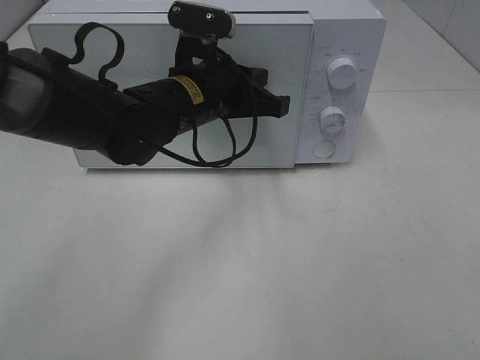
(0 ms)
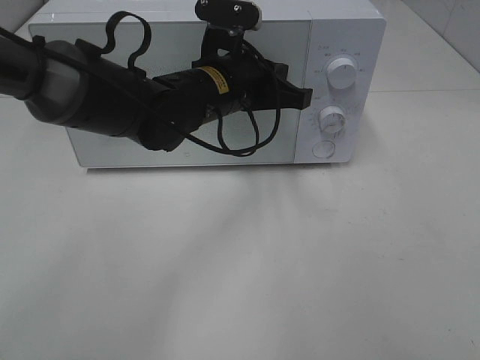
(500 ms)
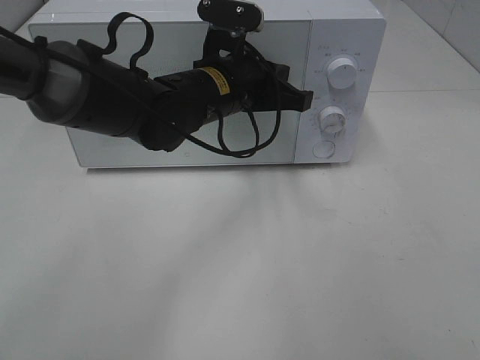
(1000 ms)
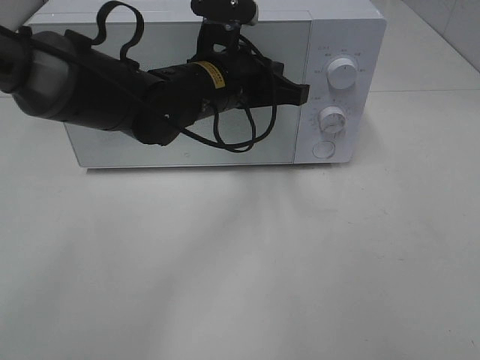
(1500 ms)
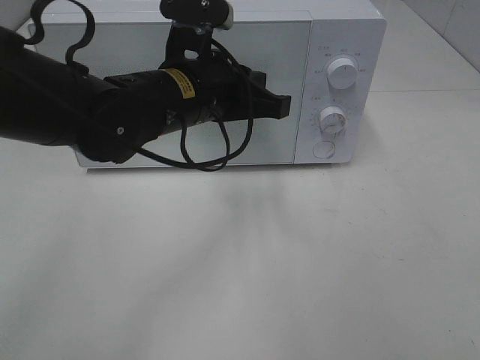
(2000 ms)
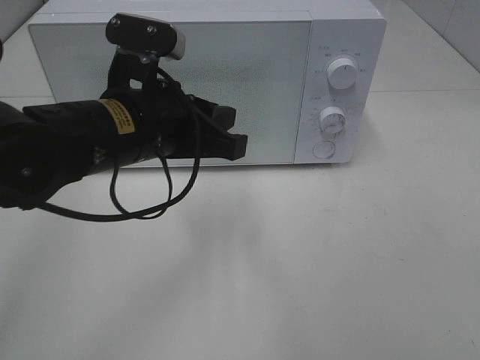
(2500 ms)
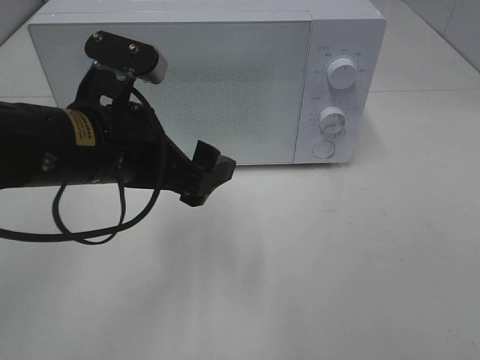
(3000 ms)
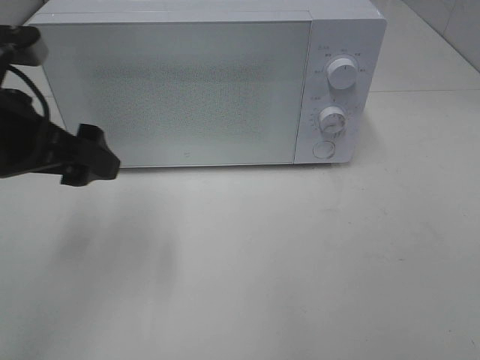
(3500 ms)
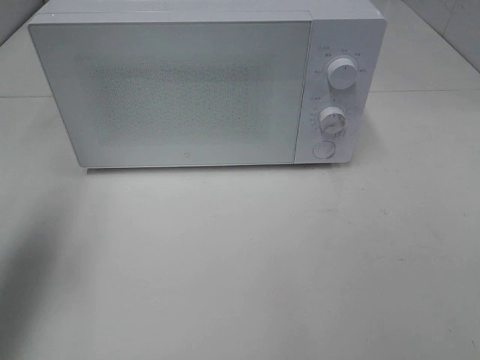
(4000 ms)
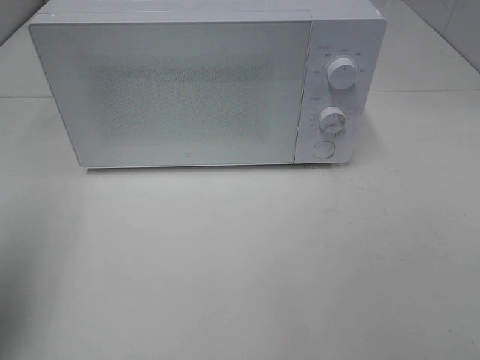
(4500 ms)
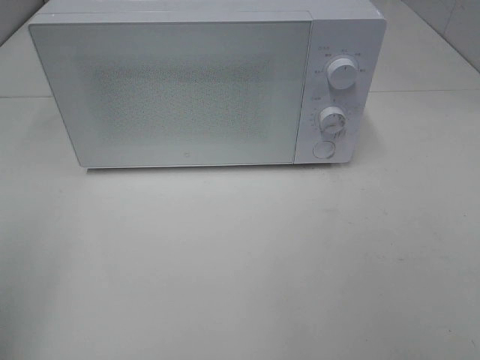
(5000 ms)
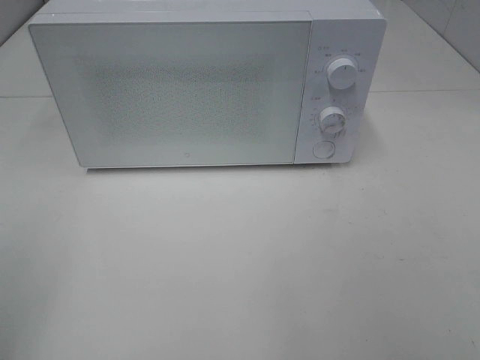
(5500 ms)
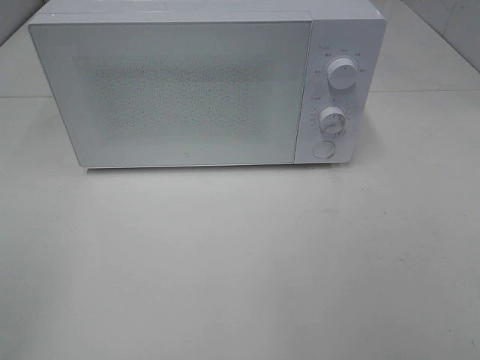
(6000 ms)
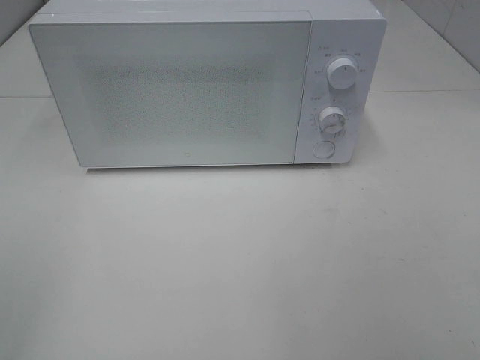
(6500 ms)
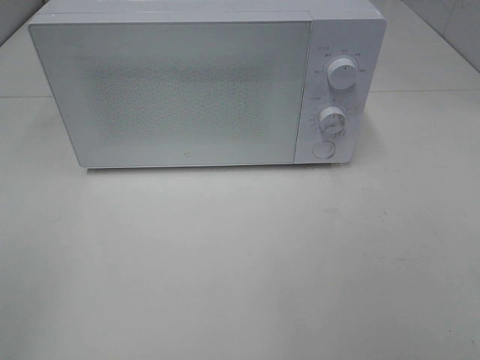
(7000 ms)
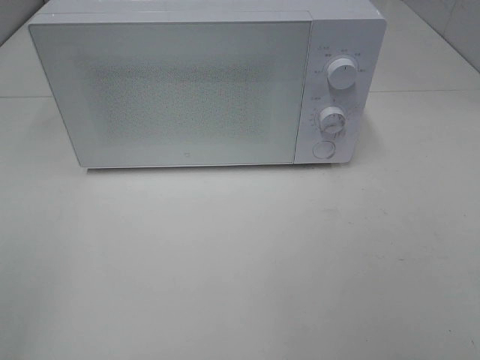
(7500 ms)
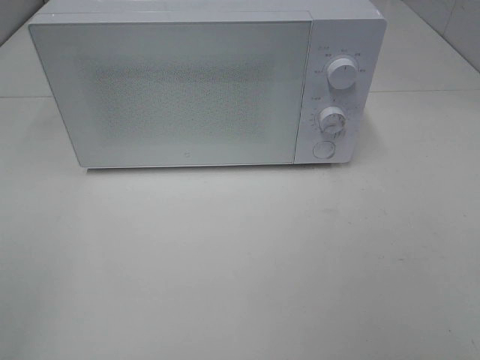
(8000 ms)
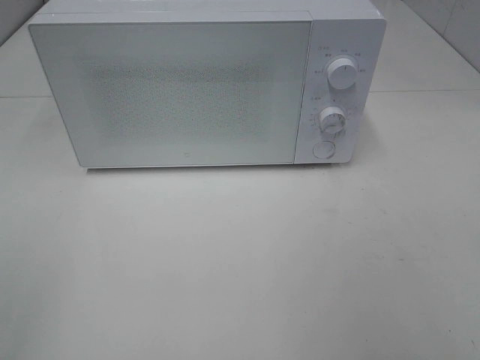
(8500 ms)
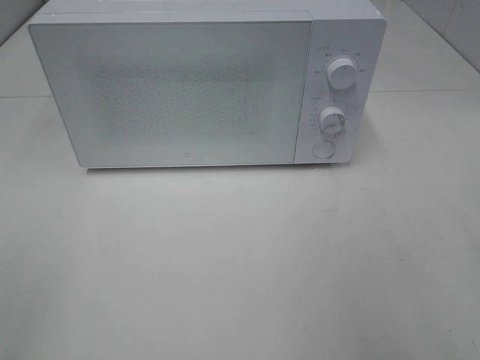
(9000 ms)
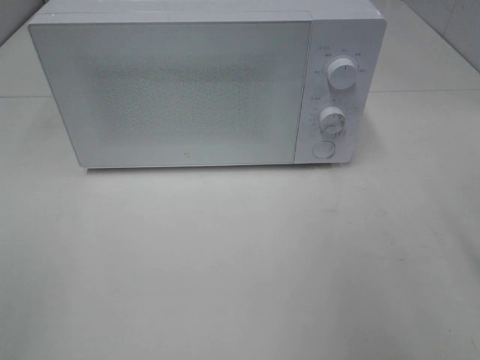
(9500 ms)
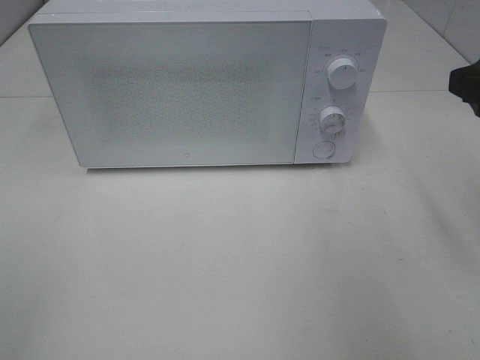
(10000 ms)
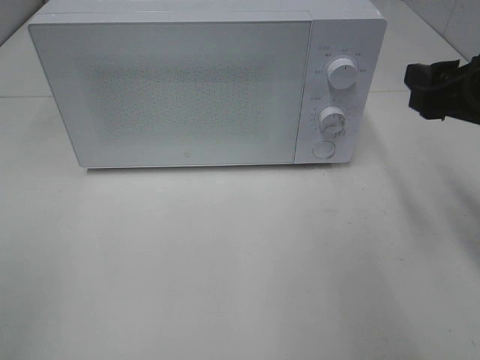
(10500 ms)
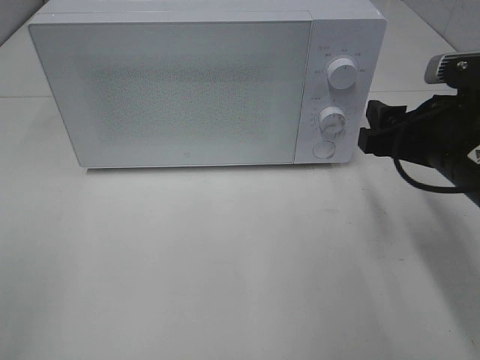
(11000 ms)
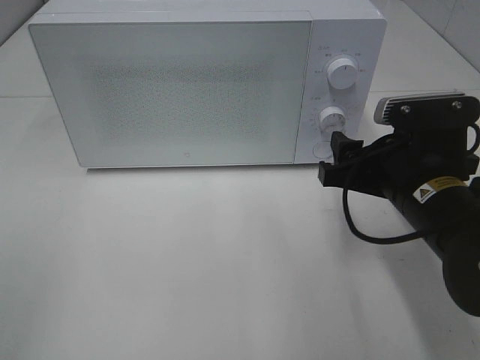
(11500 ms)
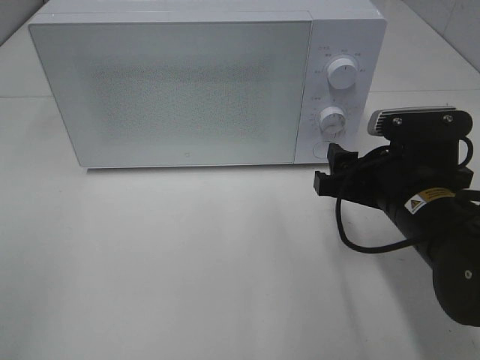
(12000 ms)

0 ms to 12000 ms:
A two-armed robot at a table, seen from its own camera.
Task of the whole recording: Heat Sandwich.
0 ms to 2000 ms: The grippers make only small movements.
2000 ms to 4000 ms: The left gripper shifts roughly 25 cm to the left, and opens its fingers.
4000 ms to 6000 ms: The left gripper travels backward by about 20 cm.
8000 ms to 10000 ms: The right gripper heads forward, covering roughly 20 cm.
10000 ms to 12000 ms: The right gripper heads downward and to the left, covering roughly 15 cm.

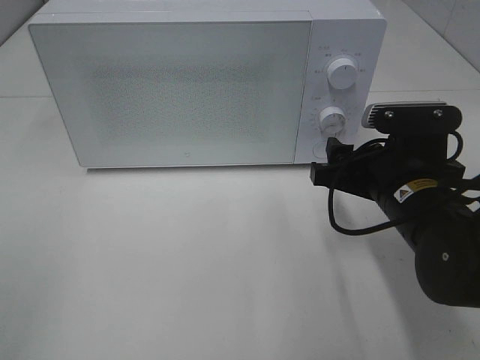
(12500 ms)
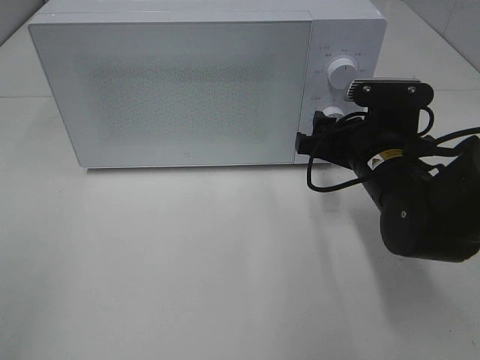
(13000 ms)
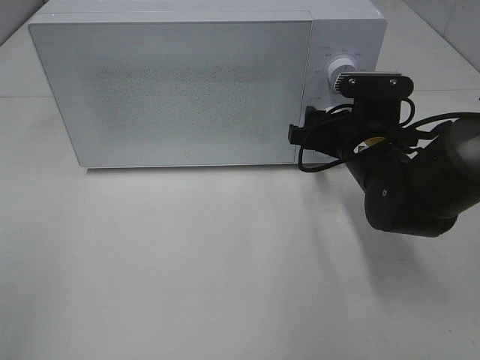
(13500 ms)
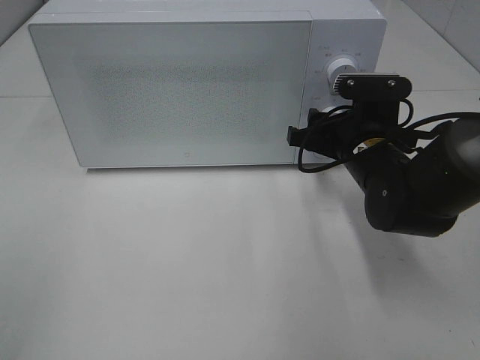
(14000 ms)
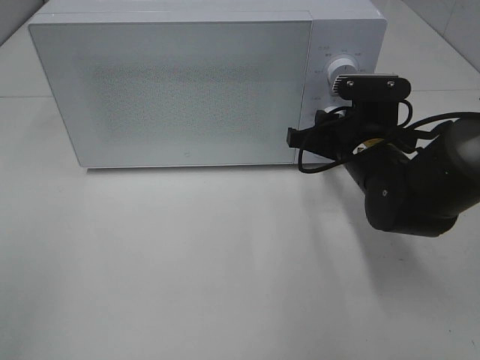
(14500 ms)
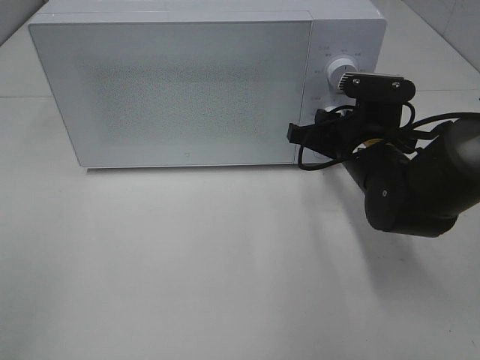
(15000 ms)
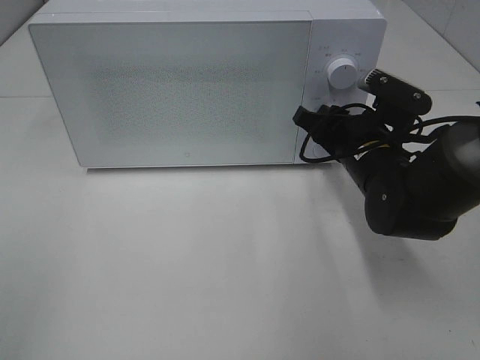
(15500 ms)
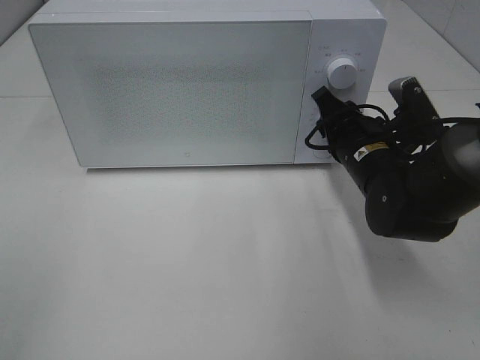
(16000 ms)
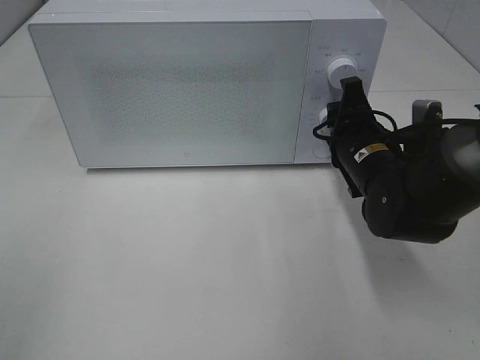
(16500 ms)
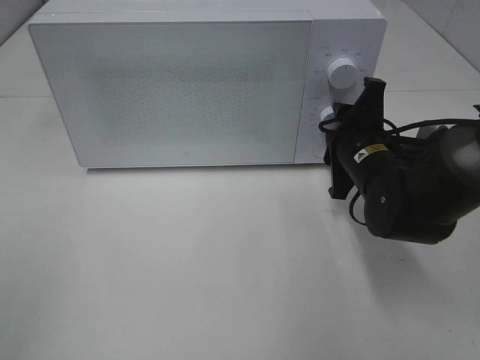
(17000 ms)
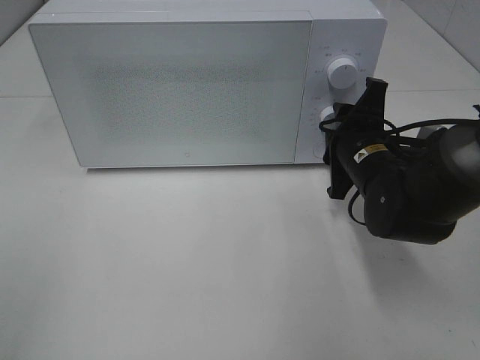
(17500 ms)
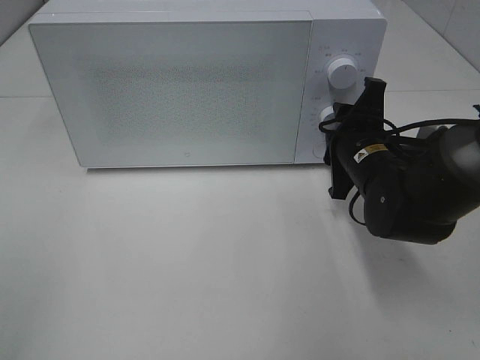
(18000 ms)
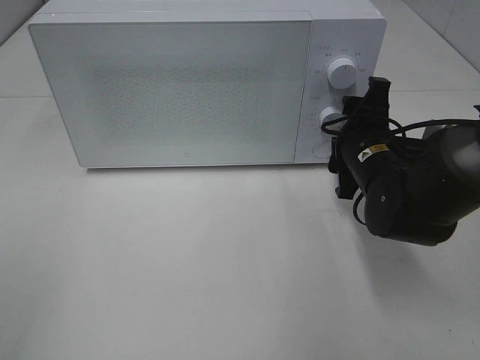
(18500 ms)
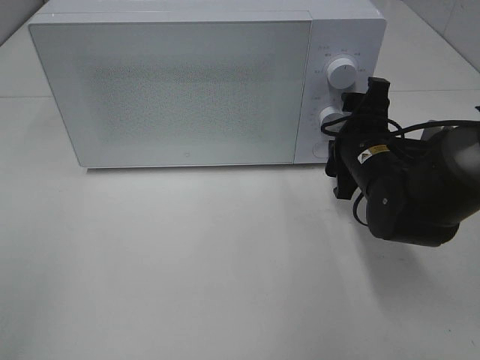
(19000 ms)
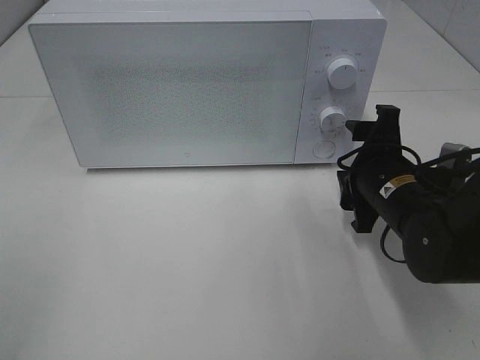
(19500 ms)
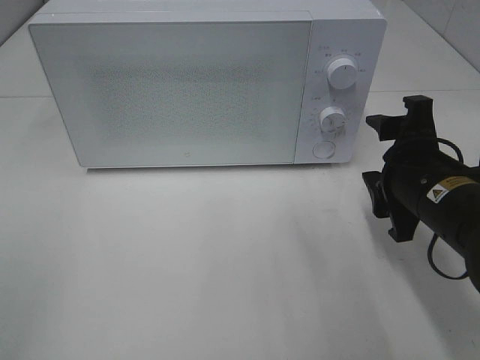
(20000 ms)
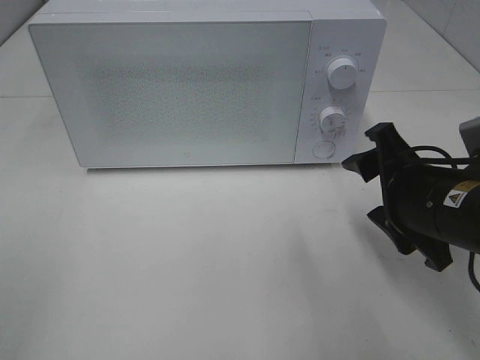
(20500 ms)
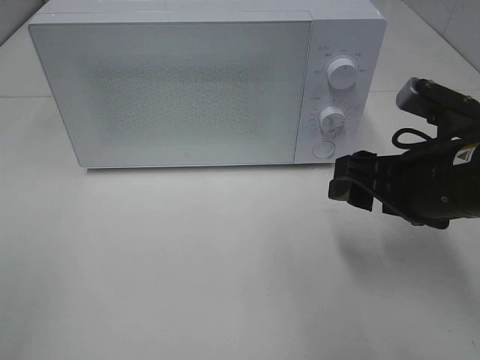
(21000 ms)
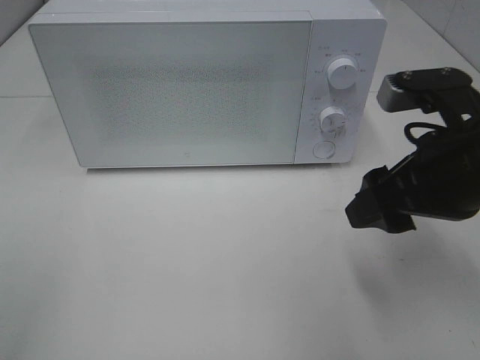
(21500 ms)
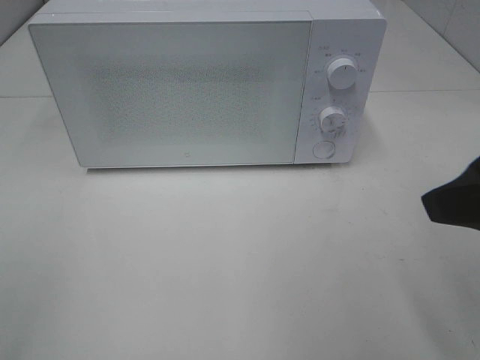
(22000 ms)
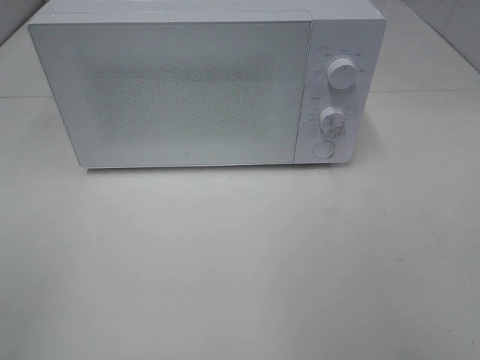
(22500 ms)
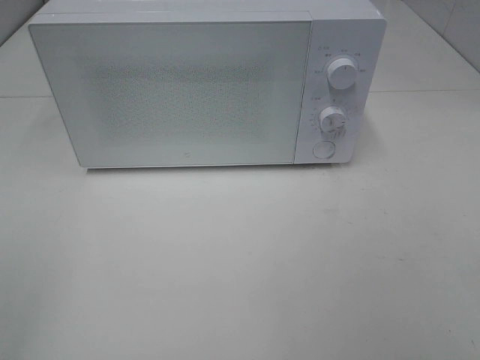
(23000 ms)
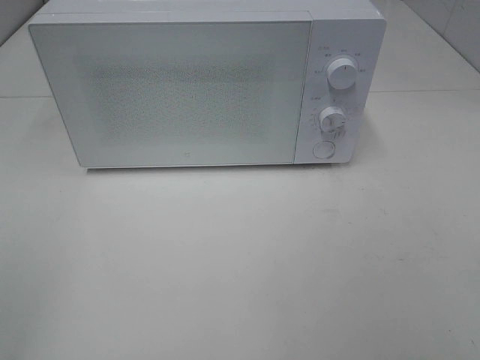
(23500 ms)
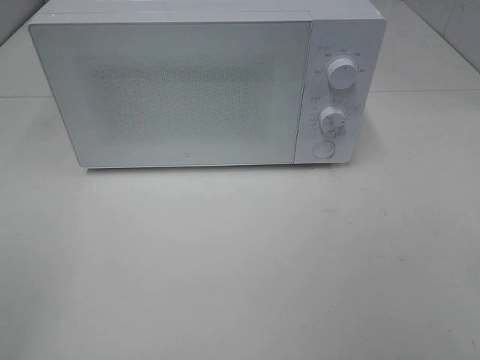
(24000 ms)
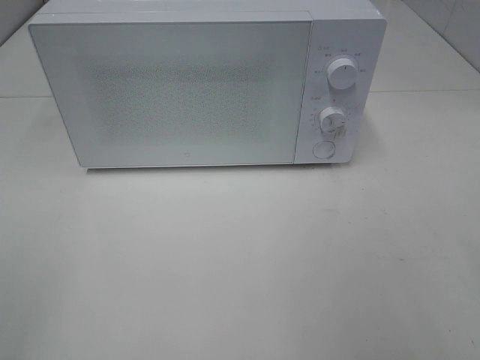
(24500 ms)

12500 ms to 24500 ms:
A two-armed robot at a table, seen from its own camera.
Task of the whole recording: Heat Sandwich.
Step, 12500 ms to 18500 ms: Right hand: twist timer button.
12500 ms to 14500 ms: The right gripper travels forward by about 10 cm, and closes.
18500 ms to 20500 ms: The right gripper travels backward by some 10 cm.
20500 ms to 22500 ms: The right gripper moves backward, upward and to the right, approximately 25 cm.

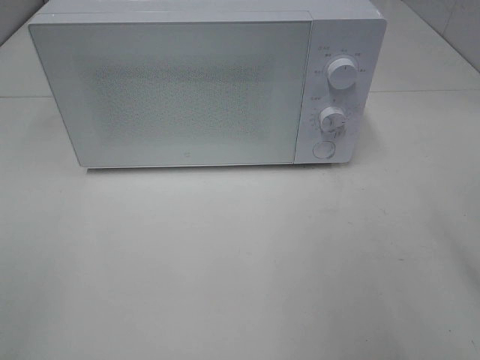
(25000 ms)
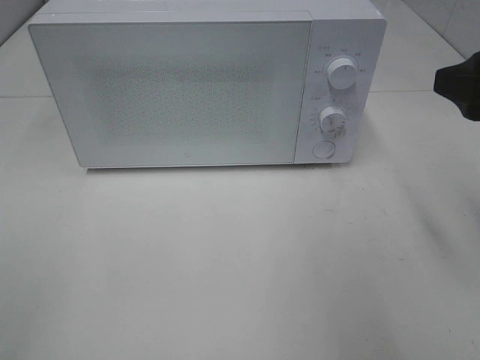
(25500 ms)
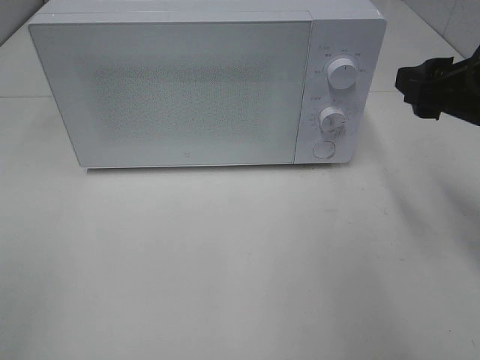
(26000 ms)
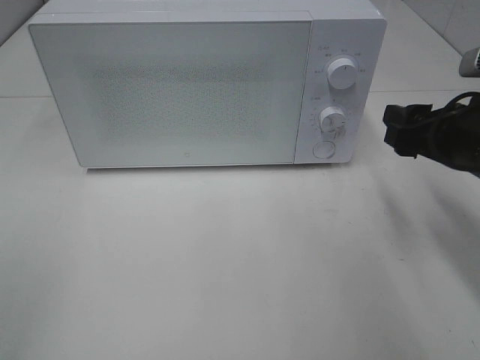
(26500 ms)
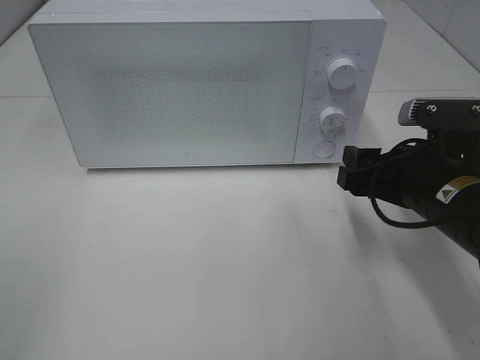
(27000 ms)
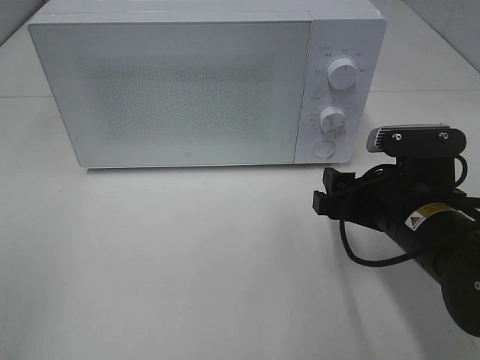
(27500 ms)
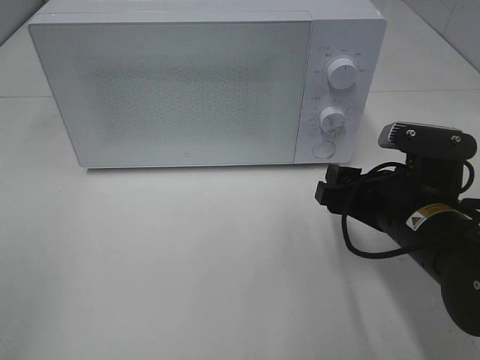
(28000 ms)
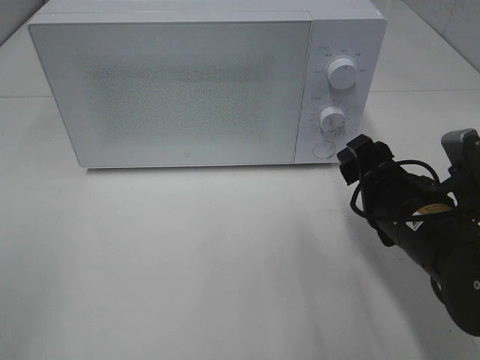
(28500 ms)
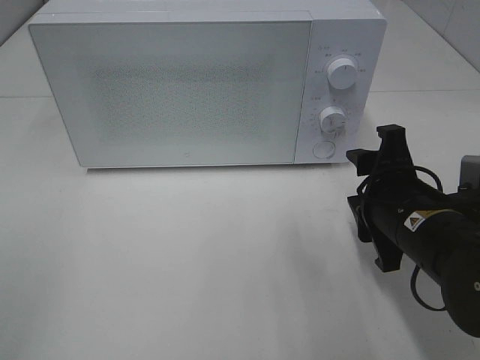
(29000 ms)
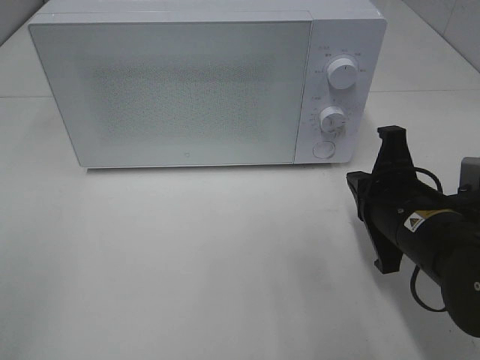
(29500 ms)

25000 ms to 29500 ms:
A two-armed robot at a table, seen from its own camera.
Task of the whole recording: Heat Sandwich.
25000 ms to 27000 ms: The right gripper travels downward, forward and to the left by approximately 20 cm.
27000 ms to 29500 ms: The right gripper closes its fingers.
